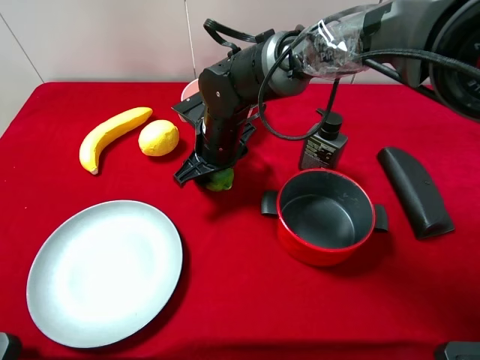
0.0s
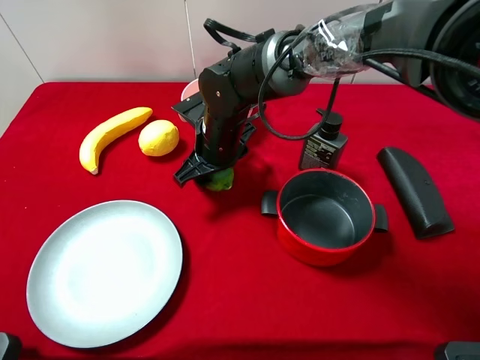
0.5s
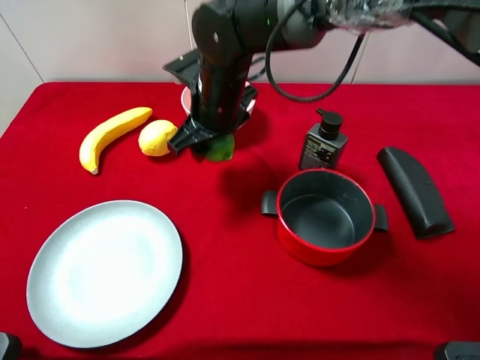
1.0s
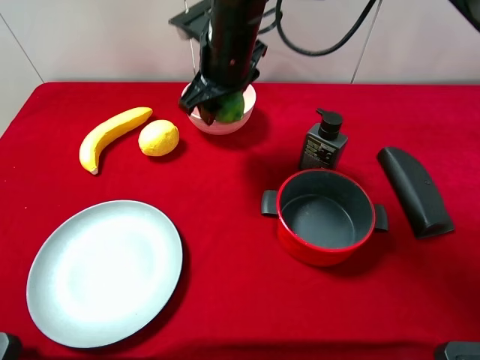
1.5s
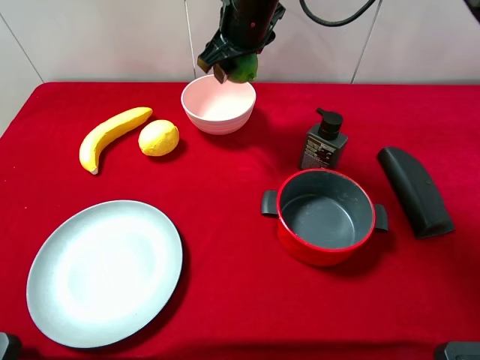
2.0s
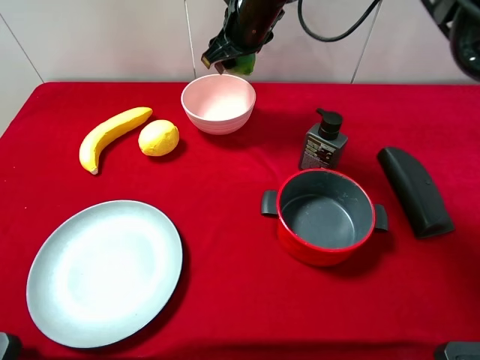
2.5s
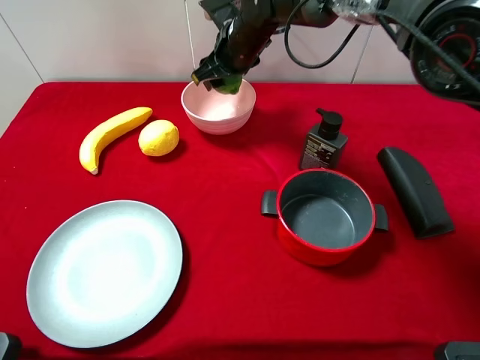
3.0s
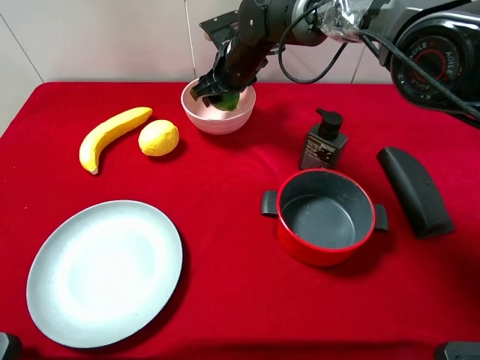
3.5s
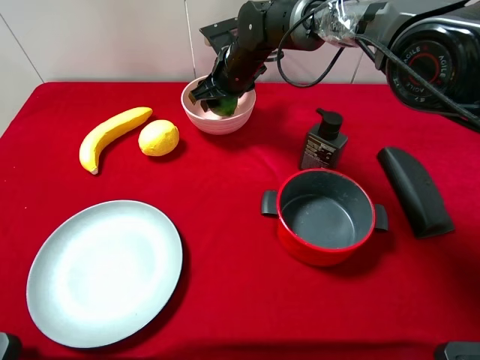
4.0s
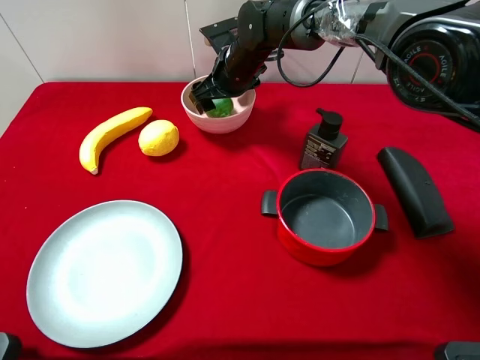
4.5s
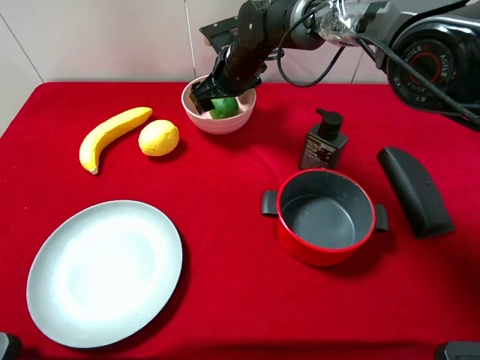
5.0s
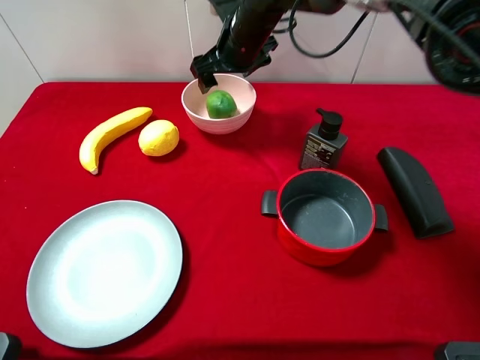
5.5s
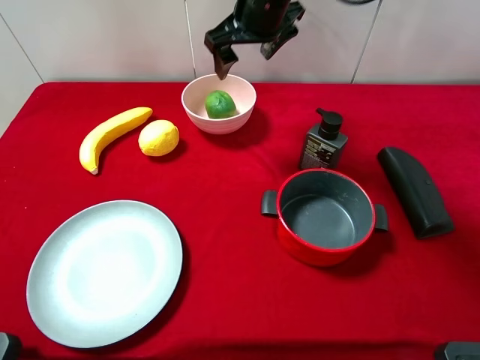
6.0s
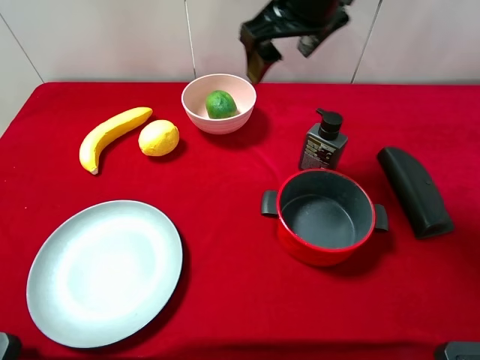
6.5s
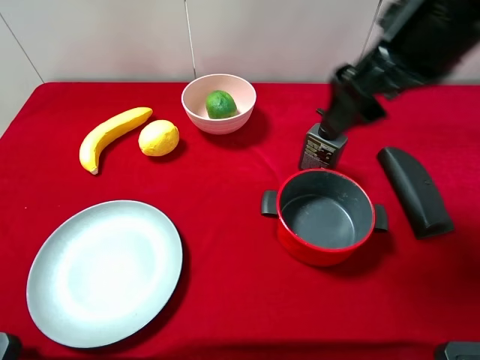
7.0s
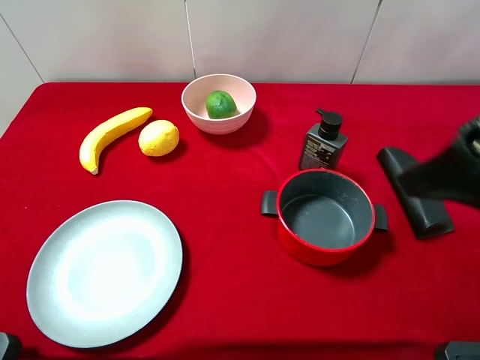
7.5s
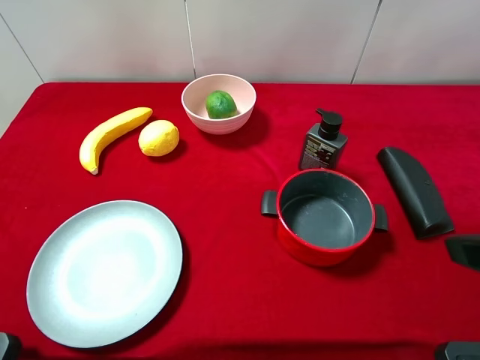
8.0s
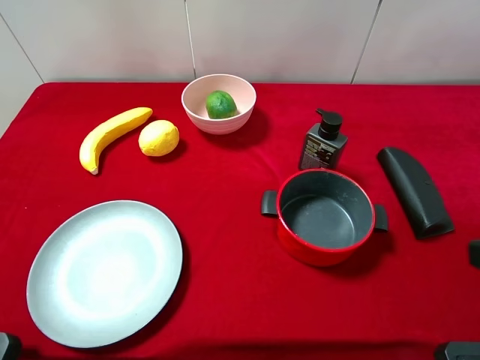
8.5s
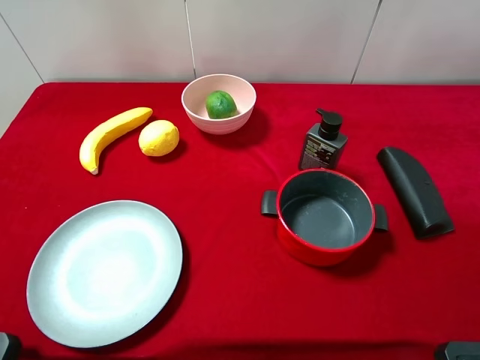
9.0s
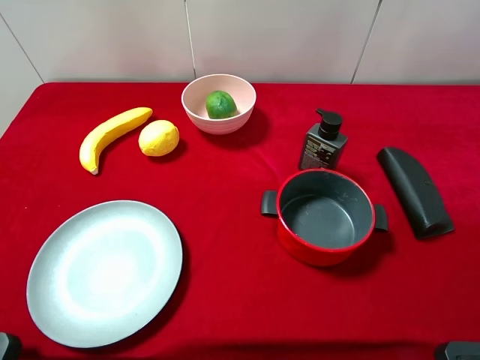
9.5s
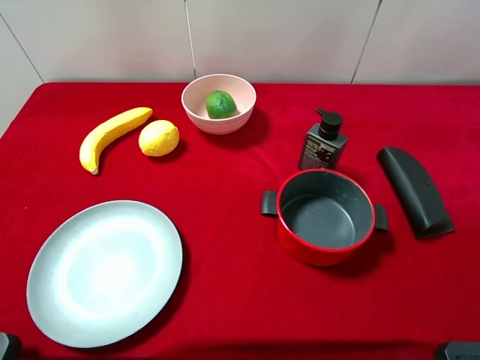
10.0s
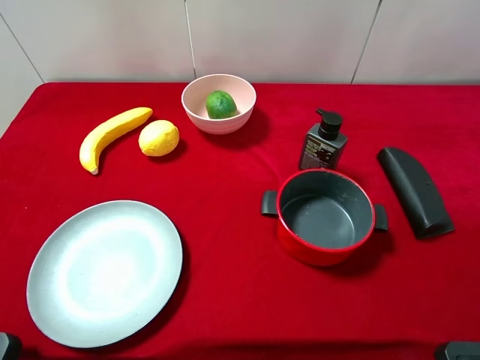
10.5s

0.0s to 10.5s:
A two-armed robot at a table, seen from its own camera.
Task of the whole recording: pick up an item with a gripper and place it in a random container on the desktop.
0.0s to 2.0s: The right gripper travels upward and forward by approximately 15 cm.
2.0s to 4.0s: The right gripper shifts some 10 cm downward.
4.0s to 6.5s: The right gripper goes roughly 25 cm upward, backward and to the right, and opens its fingers.
6.5s to 8.5s: The right gripper shifts approximately 35 cm backward and to the right.
